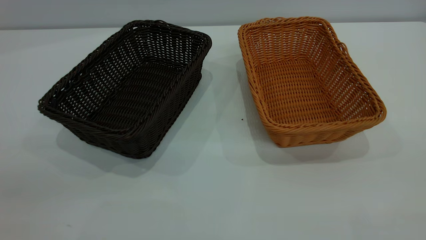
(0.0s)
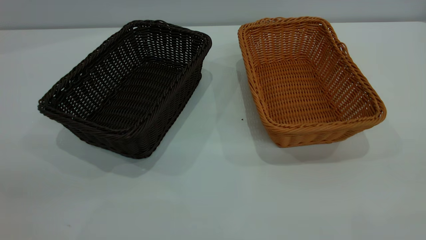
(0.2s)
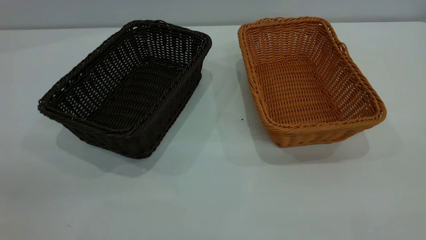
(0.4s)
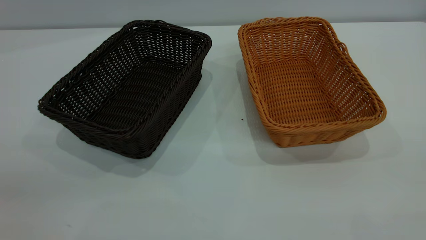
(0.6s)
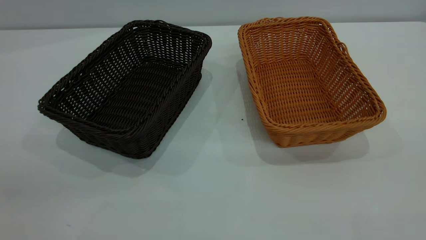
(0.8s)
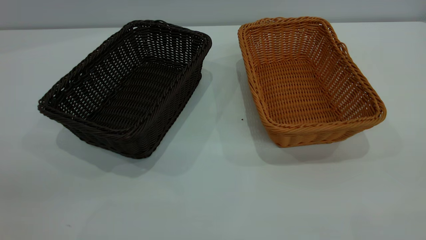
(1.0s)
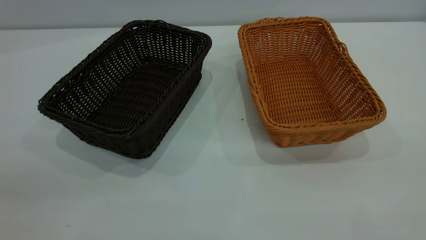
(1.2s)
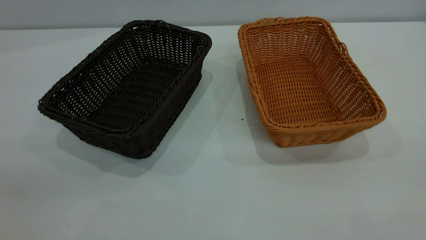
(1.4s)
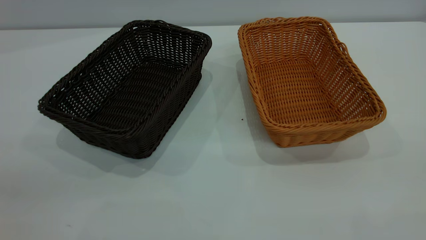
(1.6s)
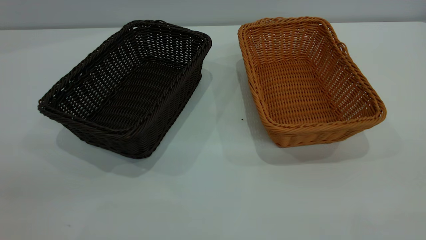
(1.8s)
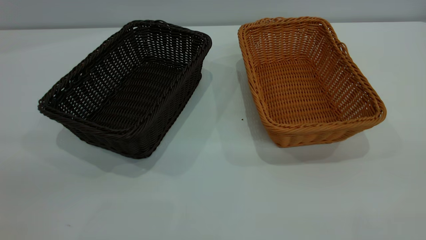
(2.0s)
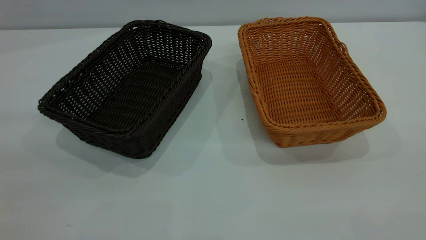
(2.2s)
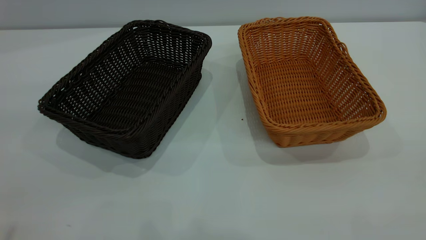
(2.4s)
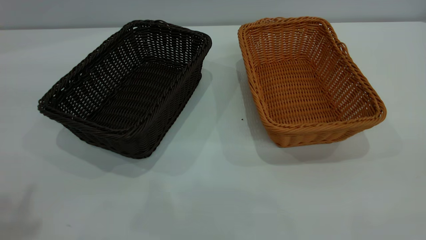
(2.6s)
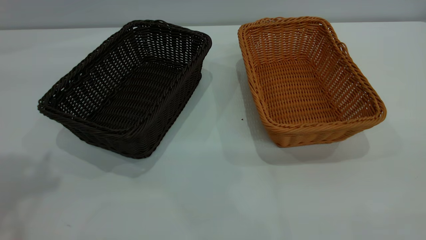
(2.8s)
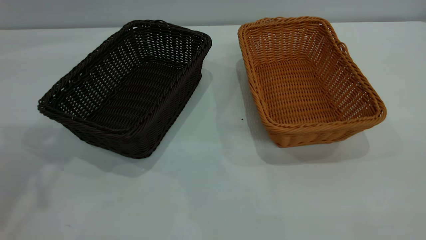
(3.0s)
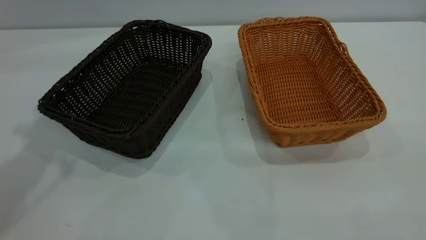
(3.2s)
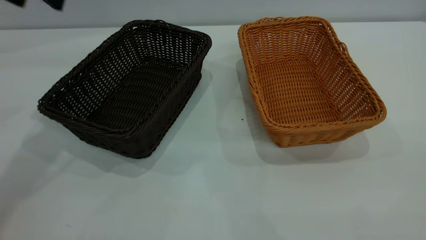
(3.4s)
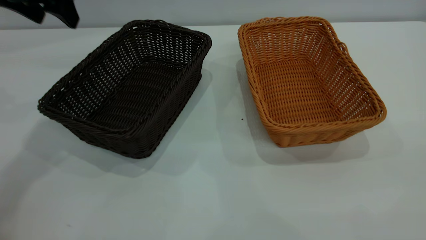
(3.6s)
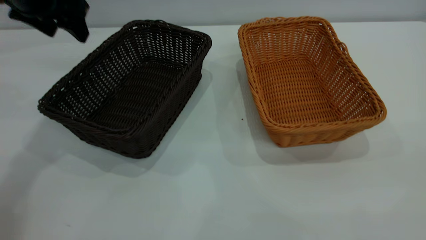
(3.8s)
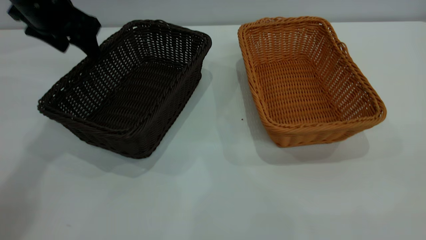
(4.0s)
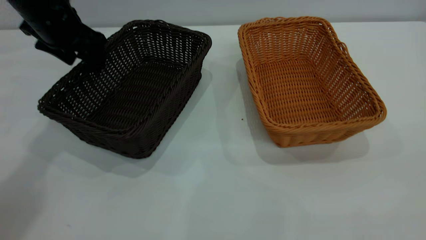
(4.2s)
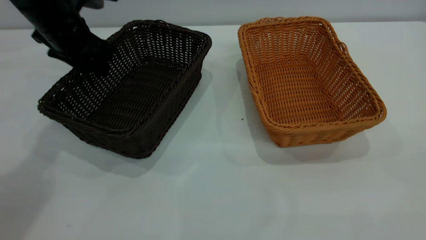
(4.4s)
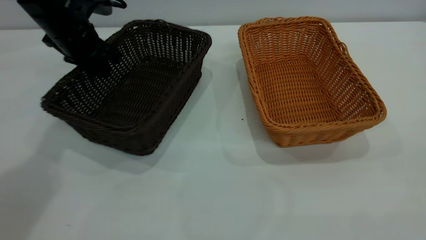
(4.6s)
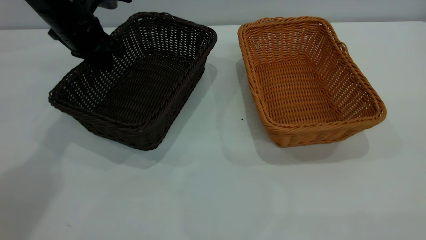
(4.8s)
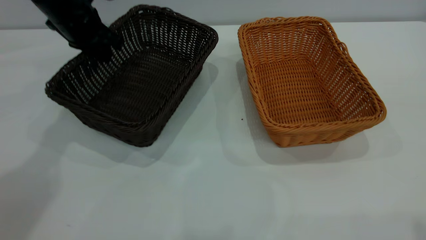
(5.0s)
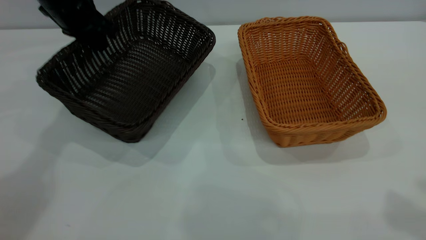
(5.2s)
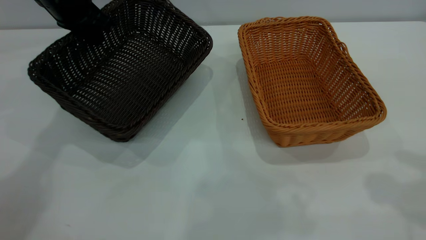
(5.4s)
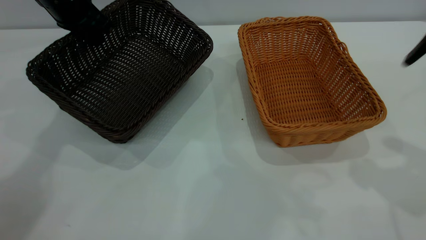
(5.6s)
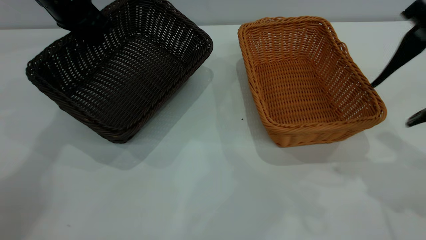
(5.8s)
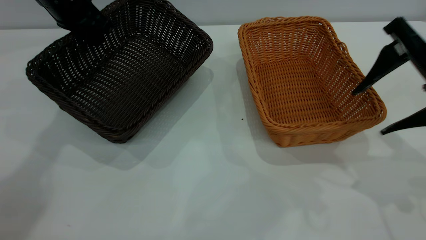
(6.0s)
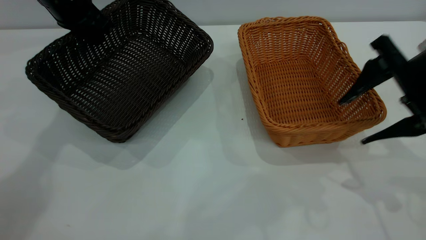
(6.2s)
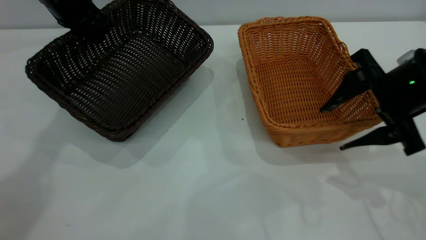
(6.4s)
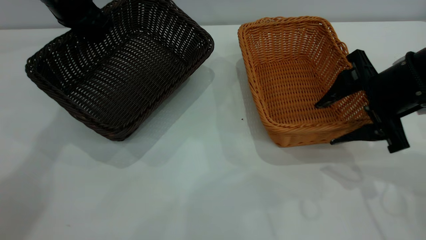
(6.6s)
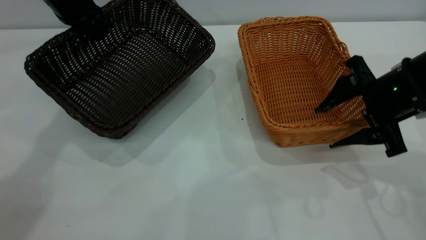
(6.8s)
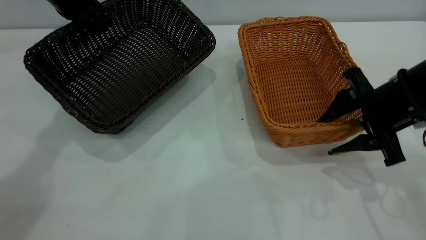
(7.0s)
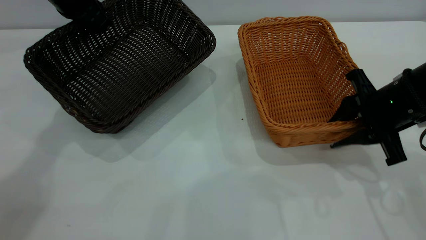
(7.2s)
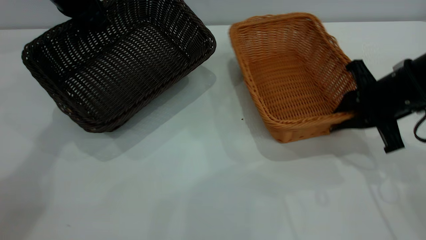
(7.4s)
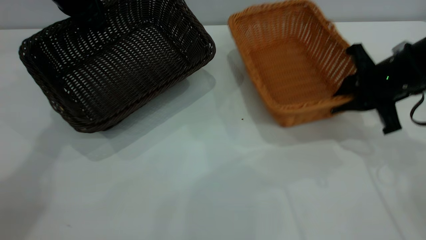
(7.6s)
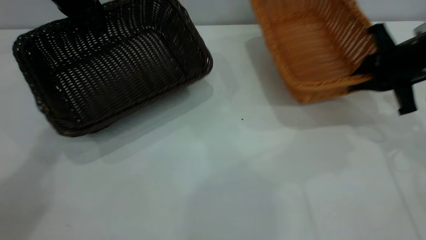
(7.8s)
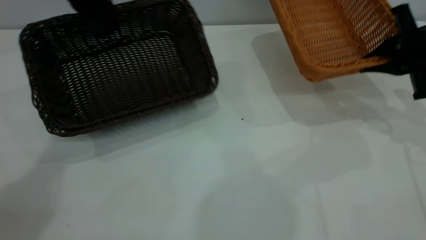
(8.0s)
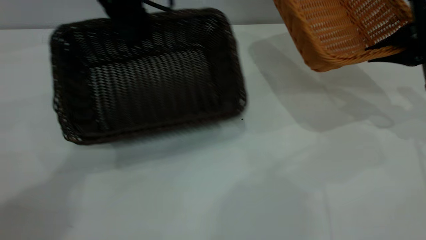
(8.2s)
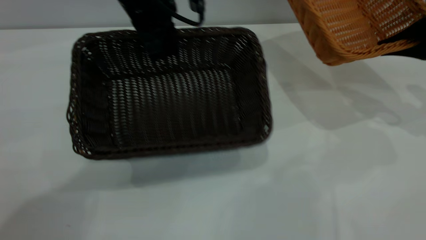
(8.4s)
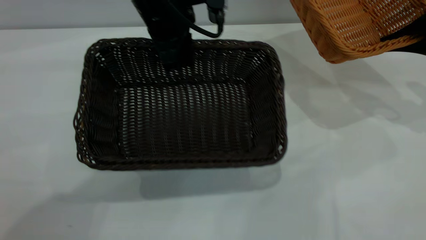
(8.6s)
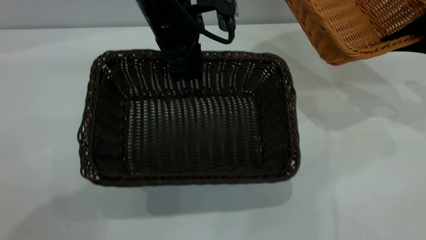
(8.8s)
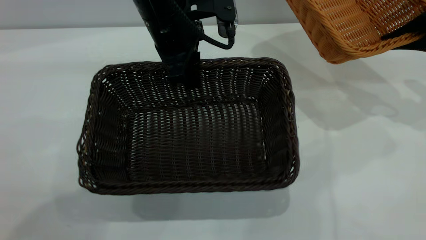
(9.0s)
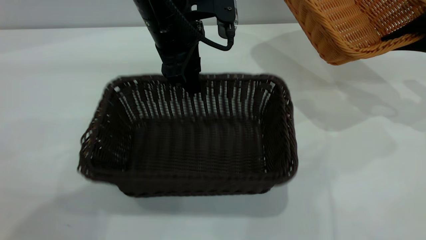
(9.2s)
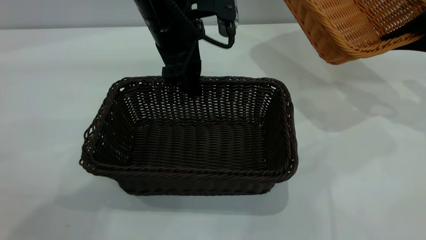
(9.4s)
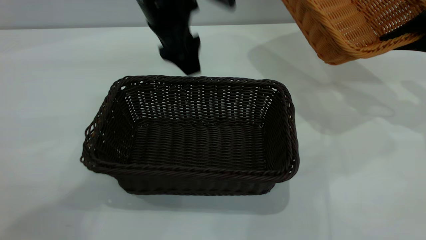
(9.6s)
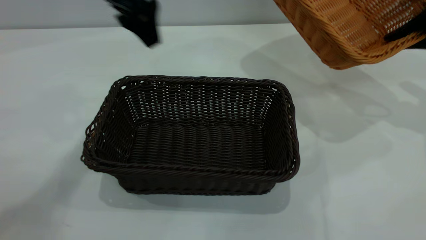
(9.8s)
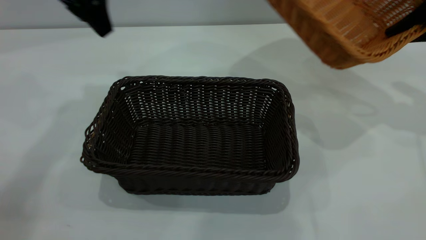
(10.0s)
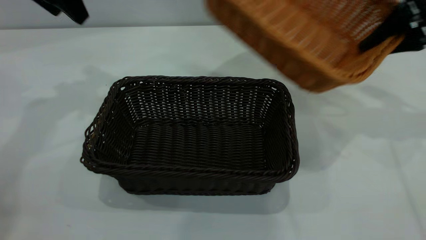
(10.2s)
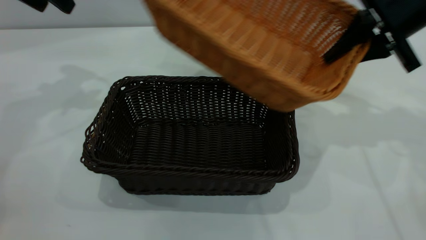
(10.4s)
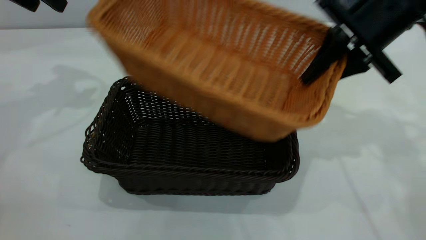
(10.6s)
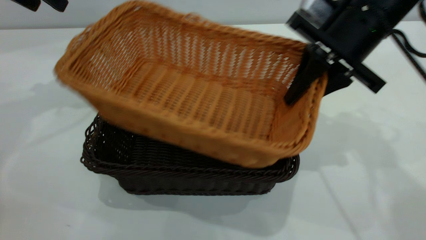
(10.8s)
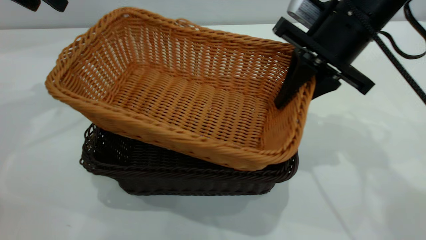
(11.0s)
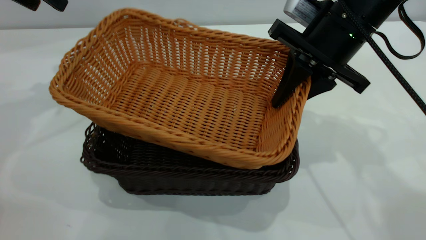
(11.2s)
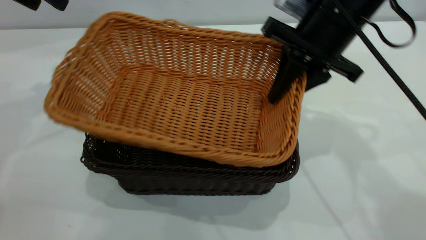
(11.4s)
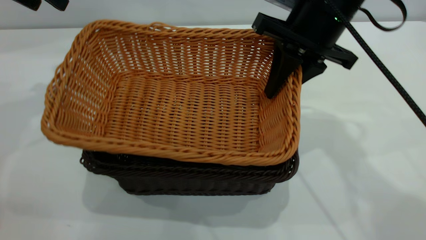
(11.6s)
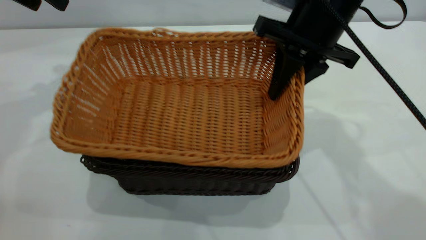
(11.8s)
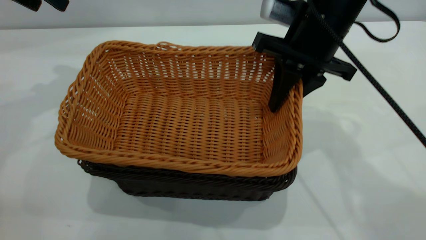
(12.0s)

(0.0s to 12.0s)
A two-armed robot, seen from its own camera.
Task of the whole recording: the left gripper grasp the black basket and place it in the center of the table, the right gripper grasp the brown basket and place it inside the black one.
Step, 0.0s - 7.8s: Pick up the light basket with the right gripper.
Step, 8.0s - 9.6s: Move the dark basket to the center of view.
0.0s - 1.6s: Both grippers stay put.
3.0s - 4.4s: The left gripper moves downward and forward, roughly 25 cm.
4.4s - 6.0s: The left gripper changes place by roughly 5 cm, and closes up; the right gripper heads forward and downward, covering approximately 30 cm.
6.0s - 7.6s: The right gripper heads downward and forward, covering approximately 10 cm, and closes its fingers.
7.6s - 9.0s: The left gripper travels to the right and backward by about 20 cm; the right gripper goes approximately 10 cm to the right and upward.
9.0s - 10.4s: The right gripper shifts roughly 15 cm to the left; the left gripper travels to the left by roughly 25 cm, and opens its fingers.
10.4s - 12.0s: The right gripper heads to the left, covering approximately 10 cm.

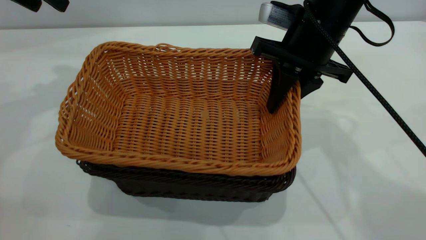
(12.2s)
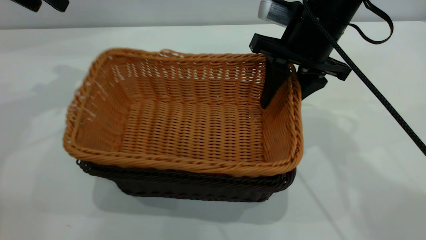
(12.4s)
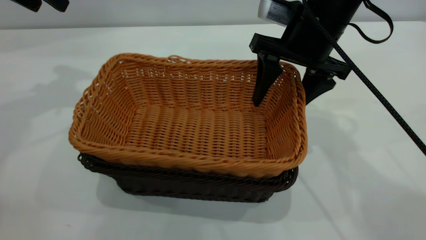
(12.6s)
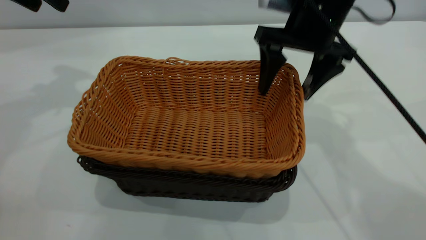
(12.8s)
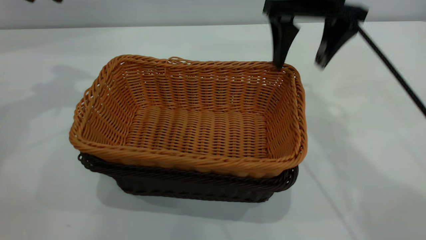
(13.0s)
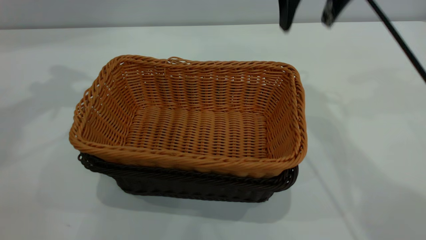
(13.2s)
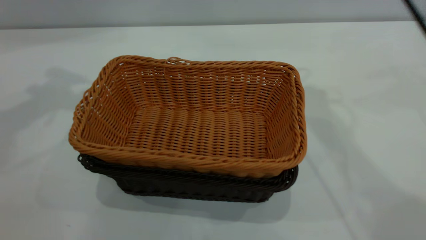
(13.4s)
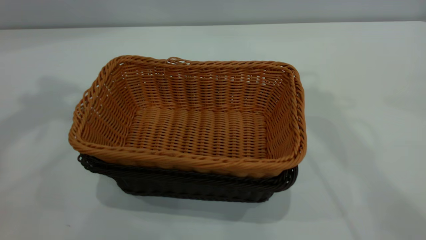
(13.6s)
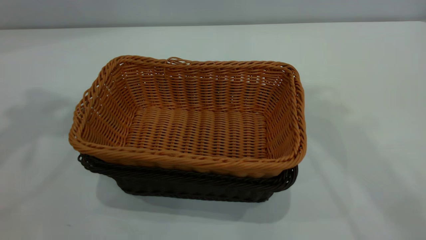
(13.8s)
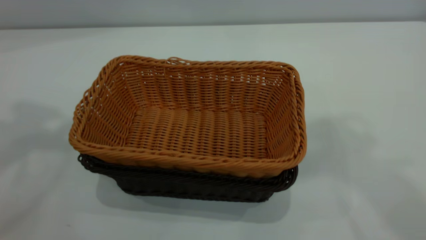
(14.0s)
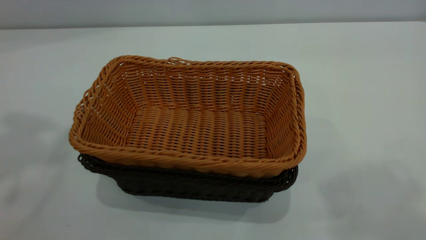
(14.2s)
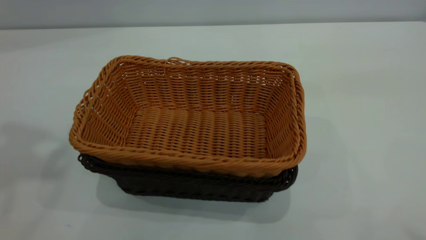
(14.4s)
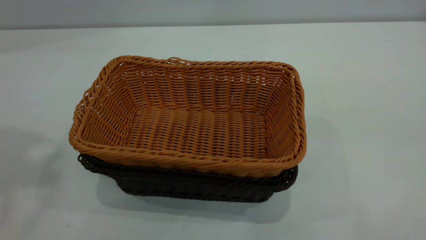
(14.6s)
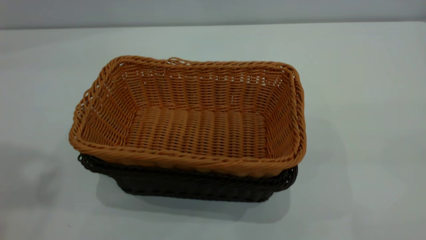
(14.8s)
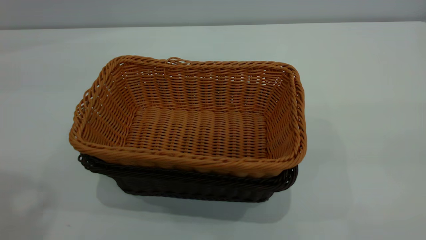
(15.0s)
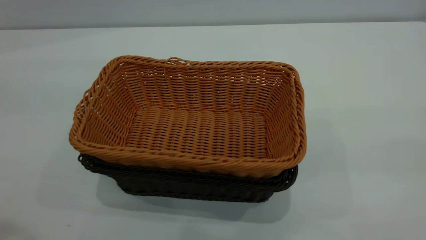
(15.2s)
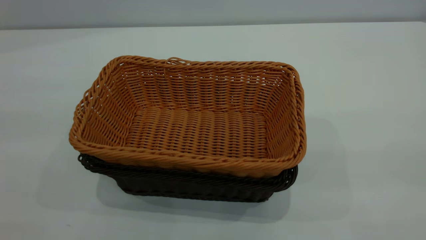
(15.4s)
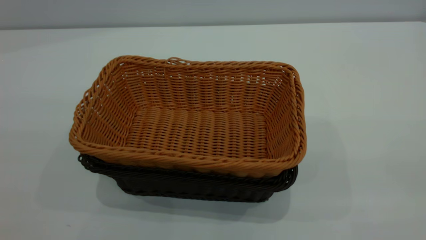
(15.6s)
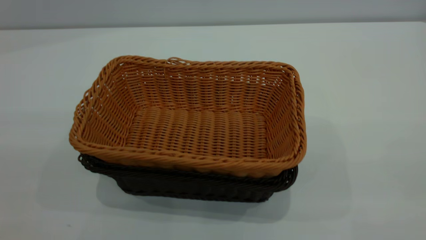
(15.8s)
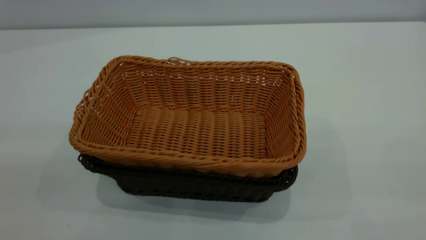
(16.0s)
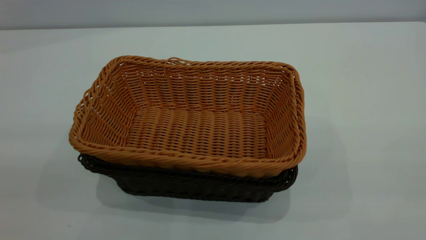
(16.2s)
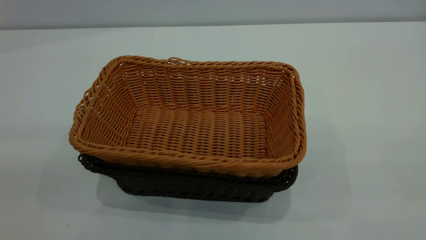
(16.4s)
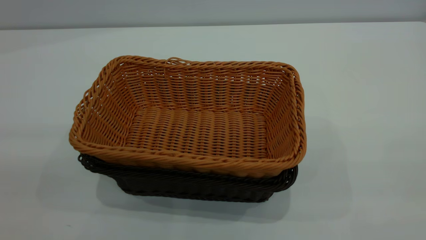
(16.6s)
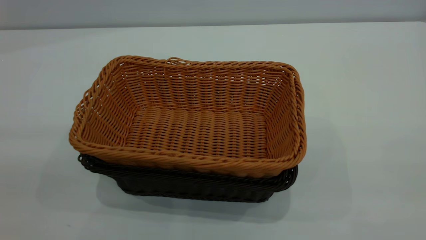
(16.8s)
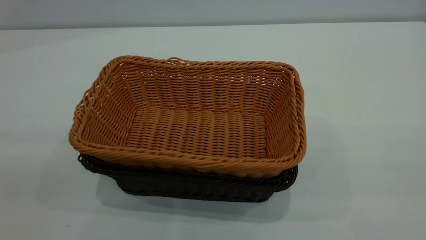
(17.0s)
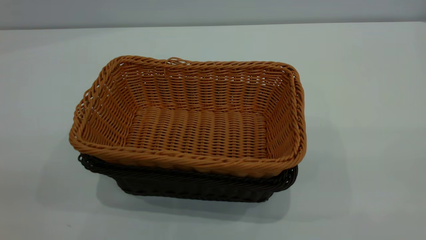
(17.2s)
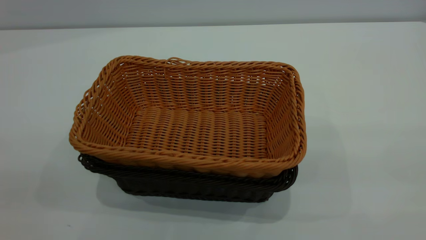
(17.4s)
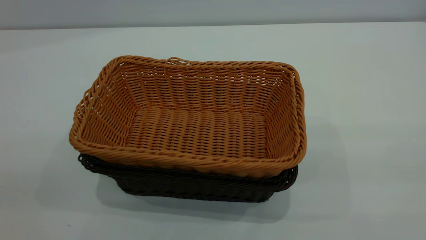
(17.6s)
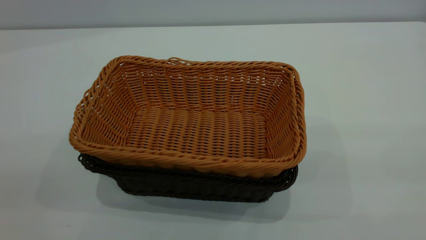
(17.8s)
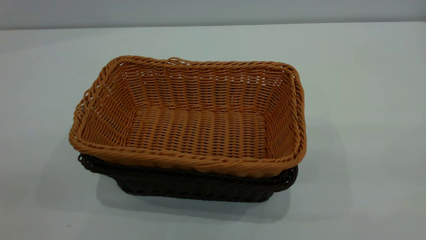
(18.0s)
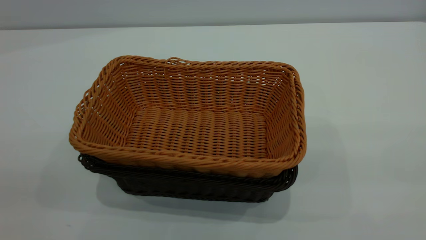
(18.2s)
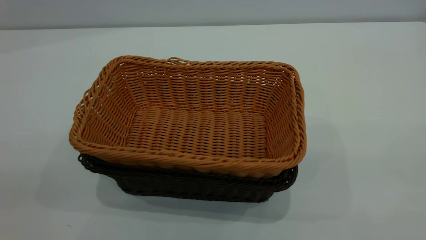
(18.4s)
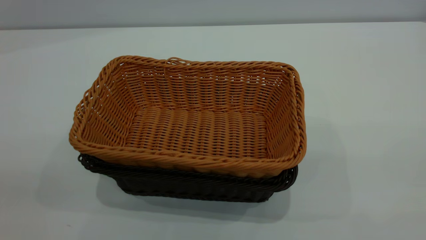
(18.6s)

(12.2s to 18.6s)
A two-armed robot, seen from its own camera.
Task of the whole recording: the left gripper grasp the black basket and place it in the center of the table, the right gripper grasp the brown basket and place it inside the black one.
12.2s - 13.8s: The right gripper heads upward, covering some 30 cm, and opens up. Meanwhile the left gripper moves upward and backward, about 20 cm.
